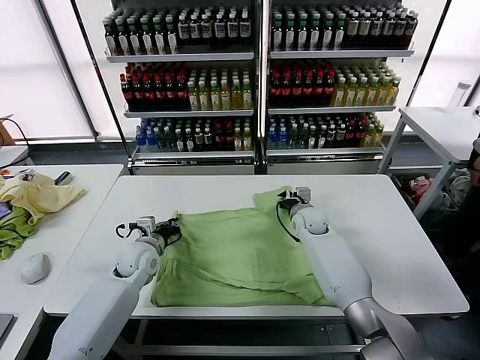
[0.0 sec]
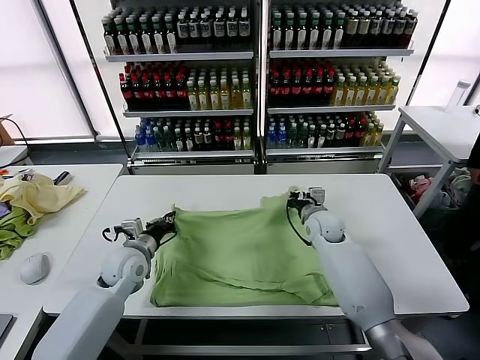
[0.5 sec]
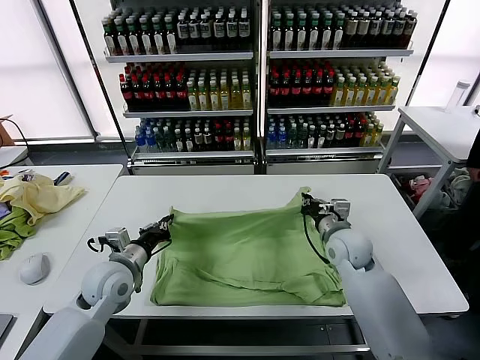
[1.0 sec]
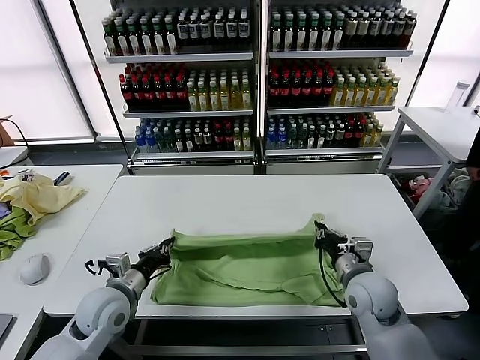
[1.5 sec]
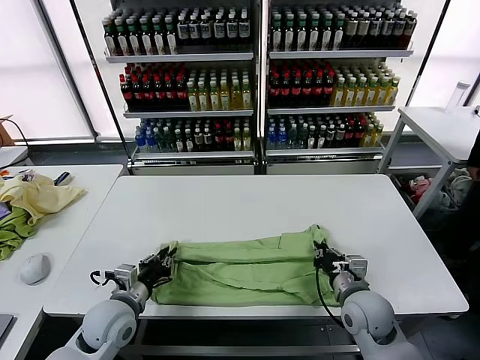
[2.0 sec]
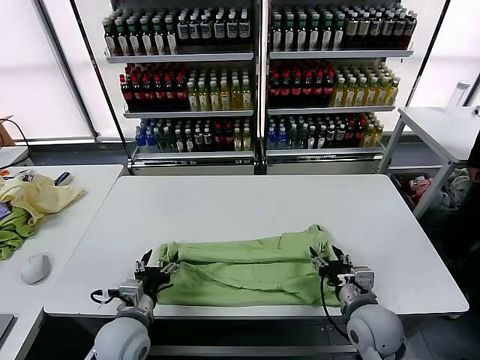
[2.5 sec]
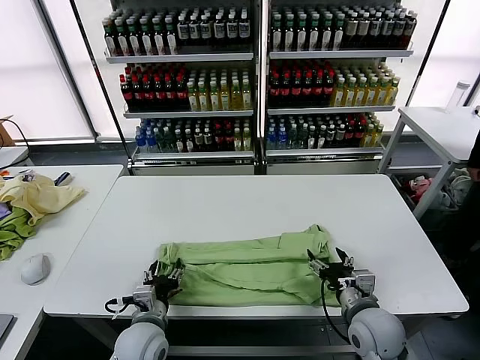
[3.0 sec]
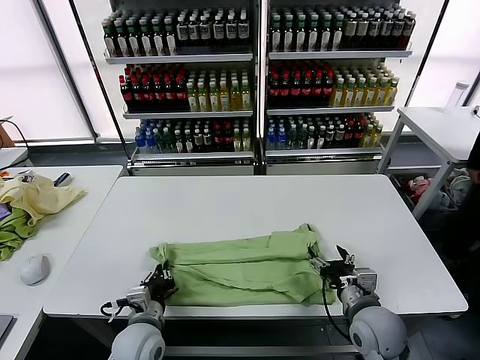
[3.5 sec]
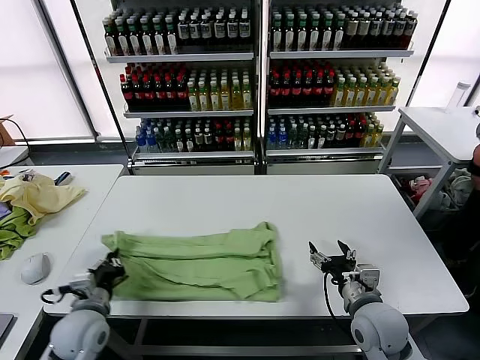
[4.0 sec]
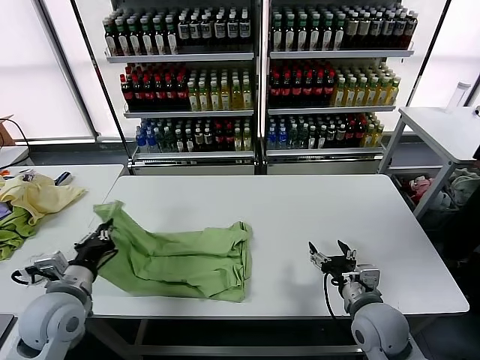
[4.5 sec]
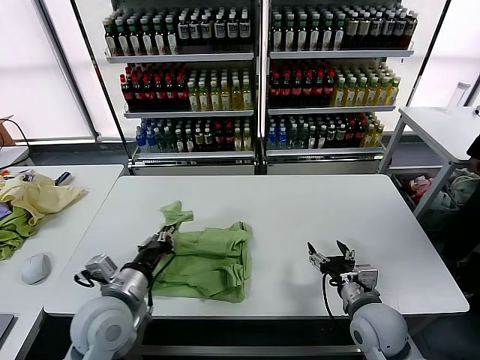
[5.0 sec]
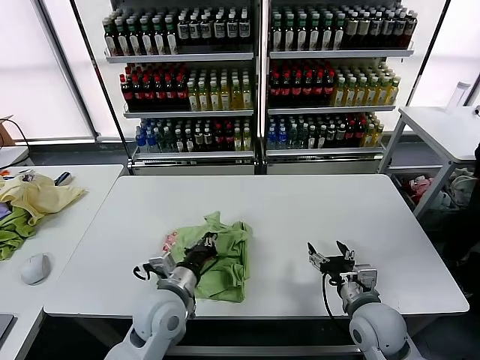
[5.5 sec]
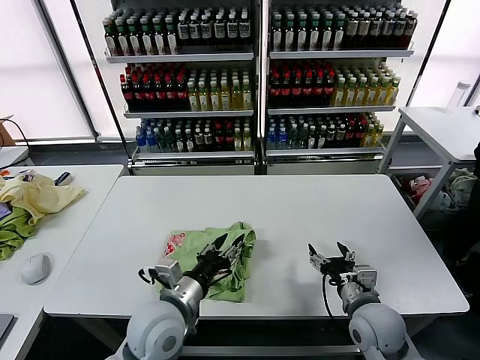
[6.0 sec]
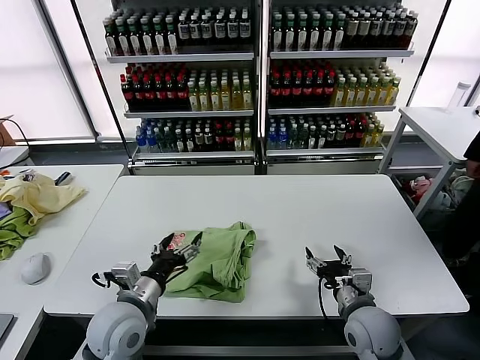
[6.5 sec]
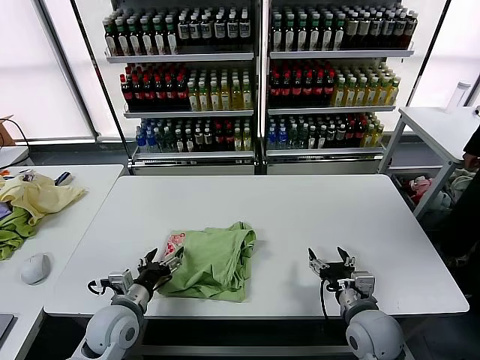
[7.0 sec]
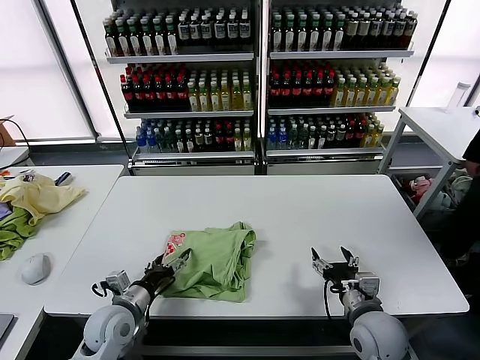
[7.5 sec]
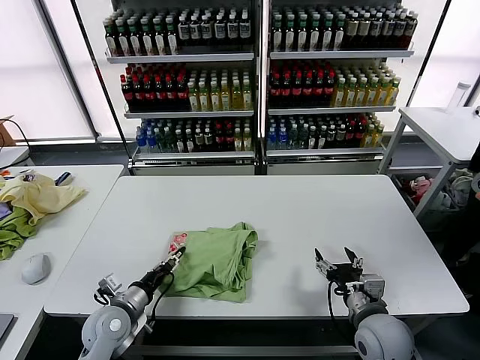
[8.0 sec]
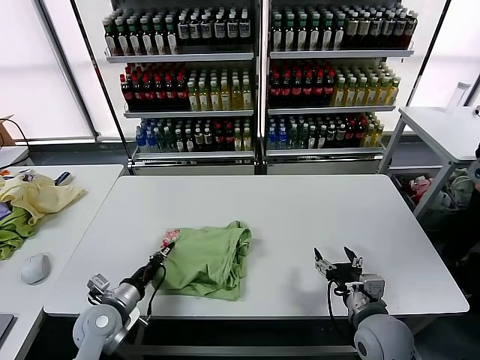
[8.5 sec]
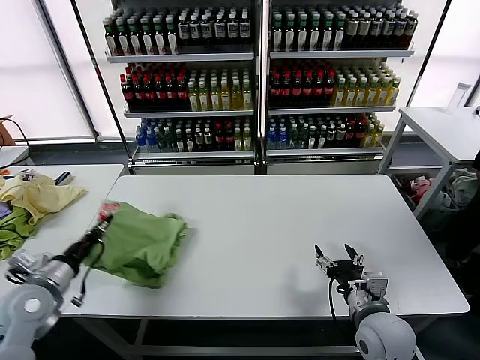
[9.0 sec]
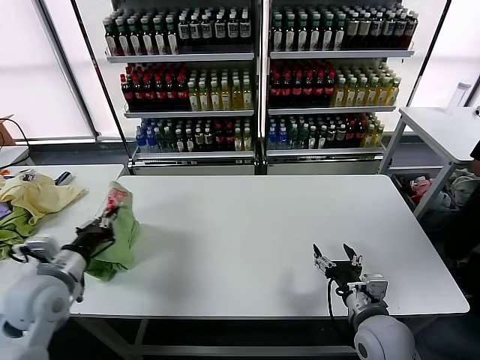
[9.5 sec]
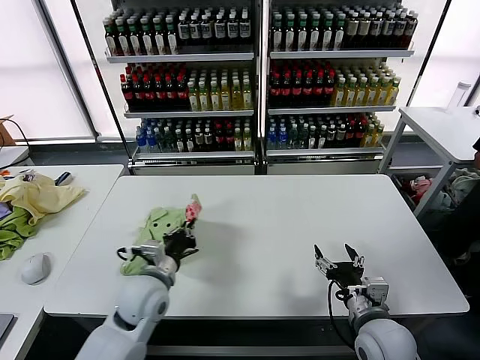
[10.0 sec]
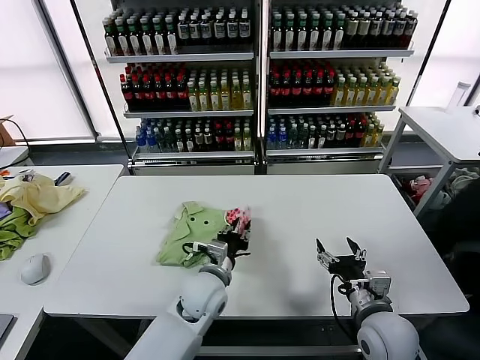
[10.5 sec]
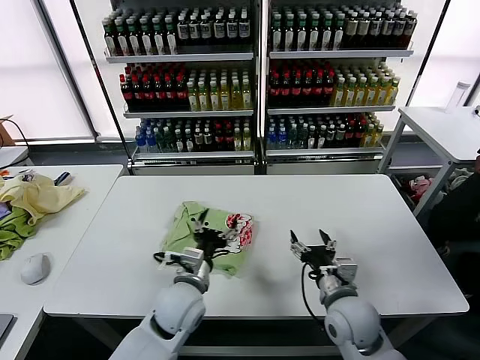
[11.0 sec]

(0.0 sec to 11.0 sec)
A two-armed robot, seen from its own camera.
Task of the whole recording: fold and organize the clothes.
Step, 0.5 sec - 2.0 sec: use both grippers to drag the upper edge of the fabric backward and fold it over the lower edge.
Step, 2.5 sec - 3.5 sec: use the left gripper to clamp the left edge of the fabric.
Step, 4.0 sec - 5.5 sec: use the left gripper to drag the left edge of the fabric to the left and folds it over the right edge.
Step, 6.5 sec - 10.5 sec: Flip the folded clothes over with left gripper.
0.0 sec - 2.0 sec: The right gripper is displaced backward by roughly 25 cm. Meanwhile the left gripper shifts approximately 15 cm backward, and opens up.
2.0 sec - 3.5 sec: The right gripper opens its fingers. Meanwhile the left gripper moves to the right, about 5 cm, and opens and closes again.
3.5 sec - 5.5 sec: The left gripper travels upward by about 10 cm, and goes to the left and returns, roughly 15 cm each way.
5.5 sec - 7.5 sec: The left gripper shifts approximately 15 cm to the left and downward, and opens.
7.5 sec - 9.0 sec: The left gripper heads to the left and upward, covering roughly 15 cm, and closes.
9.0 sec - 11.0 sec: The right gripper ends up roughly 5 cm from where it was. Meanwhile the left gripper moves to the right, roughly 30 cm, and opens up.

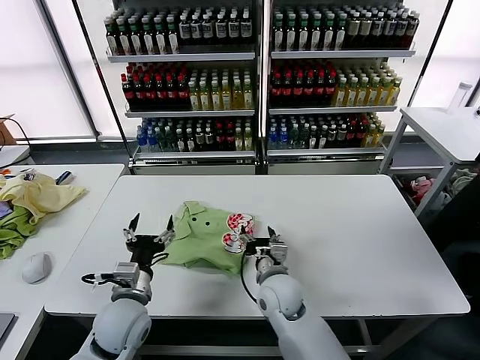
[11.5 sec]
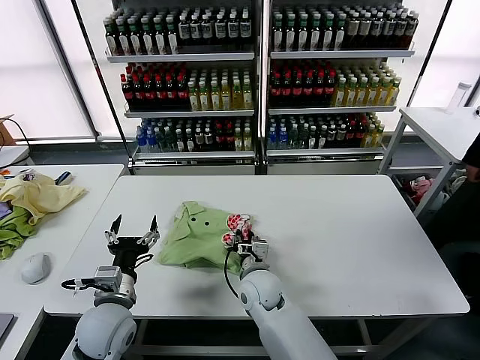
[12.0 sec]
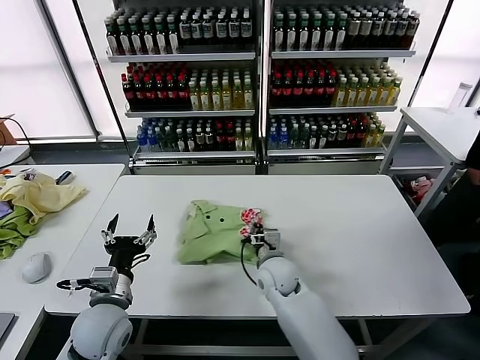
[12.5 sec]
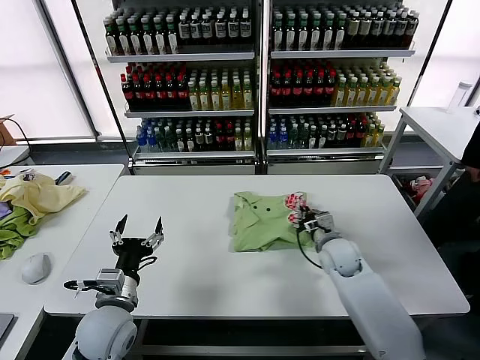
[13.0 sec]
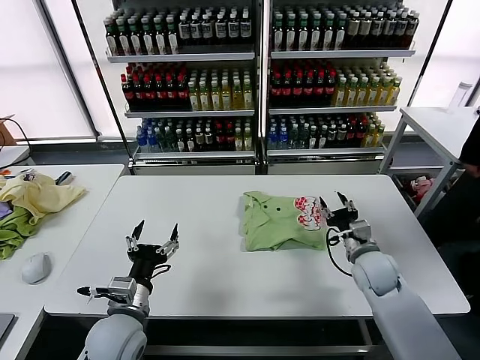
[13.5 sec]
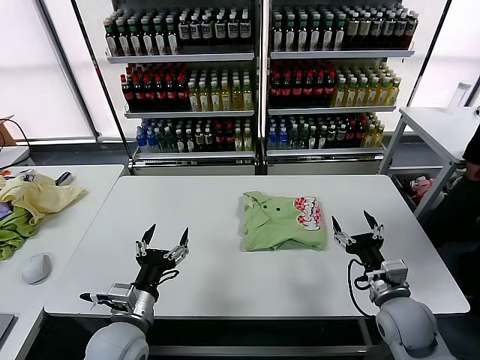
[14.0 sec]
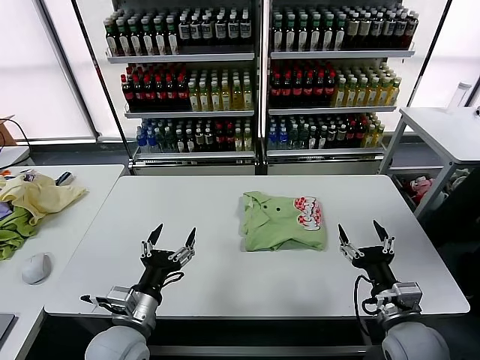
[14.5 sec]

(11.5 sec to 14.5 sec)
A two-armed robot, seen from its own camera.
Task of the whole recording: fold and organize the clothes.
Step, 11.5 sec - 13.0 sec: Drag the clothes to the center of the table.
11.5 sec - 13.0 sec: The right gripper travels to the right and forward by roughly 15 cm, and closes.
13.0 sec - 14.5 sec: The left gripper moves about 5 cm. Meanwhile the right gripper moves backward, some 20 cm, and opens its fingers.
